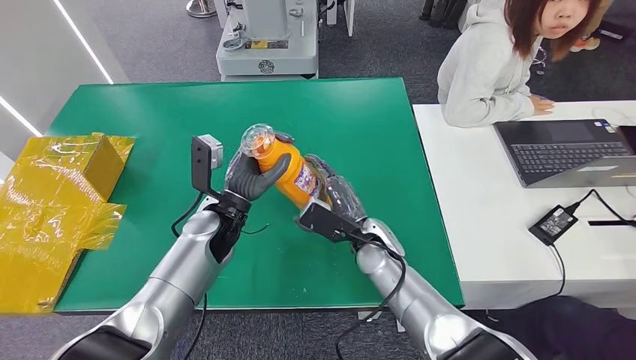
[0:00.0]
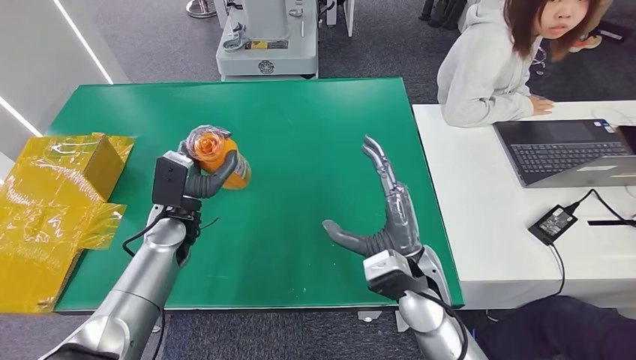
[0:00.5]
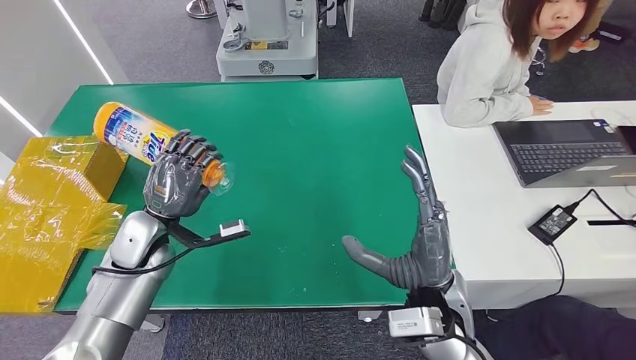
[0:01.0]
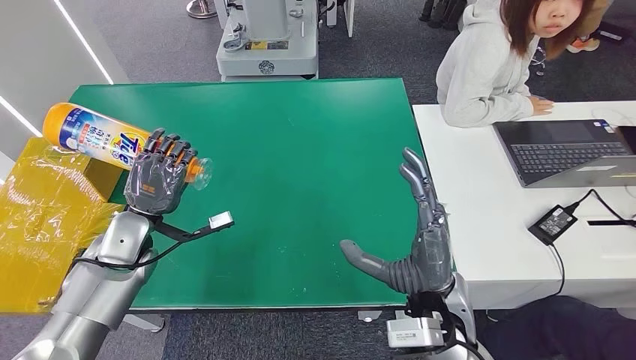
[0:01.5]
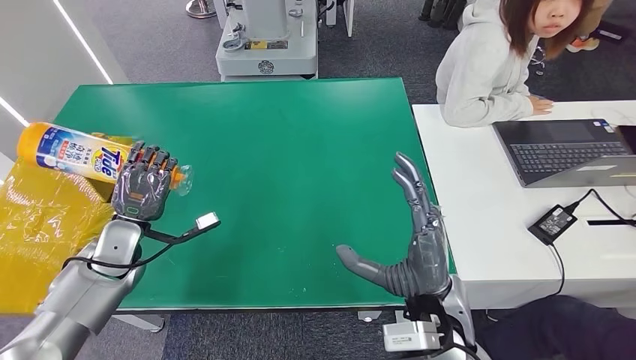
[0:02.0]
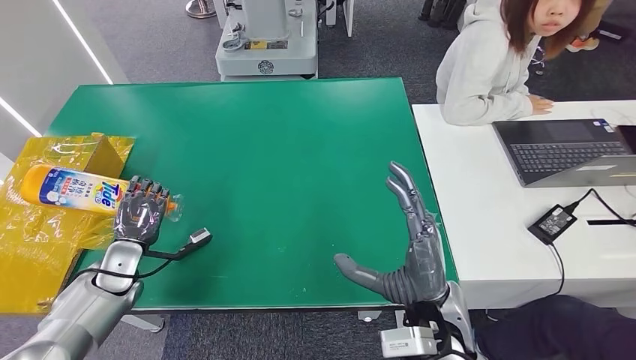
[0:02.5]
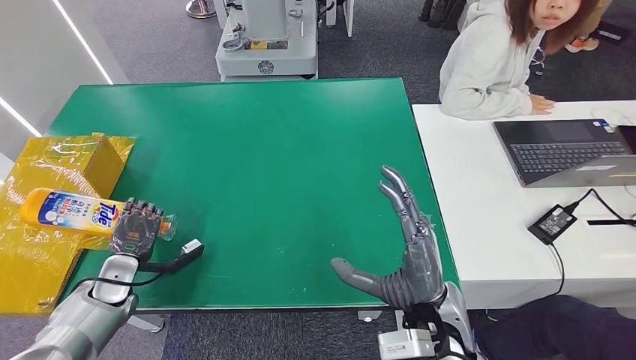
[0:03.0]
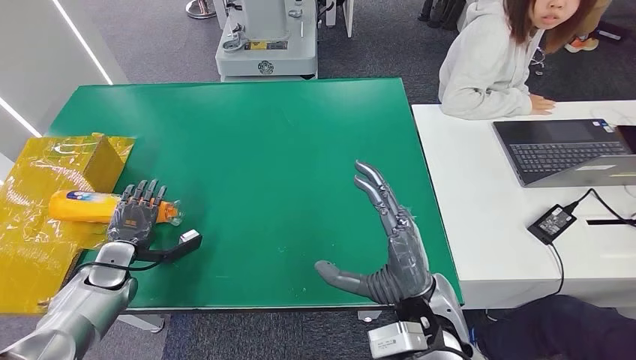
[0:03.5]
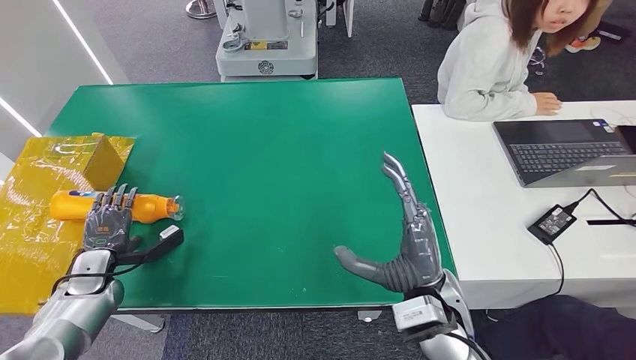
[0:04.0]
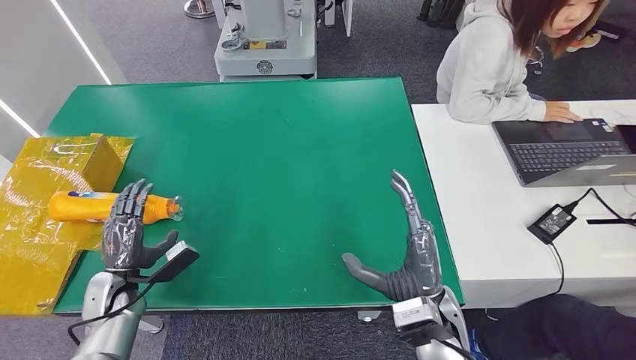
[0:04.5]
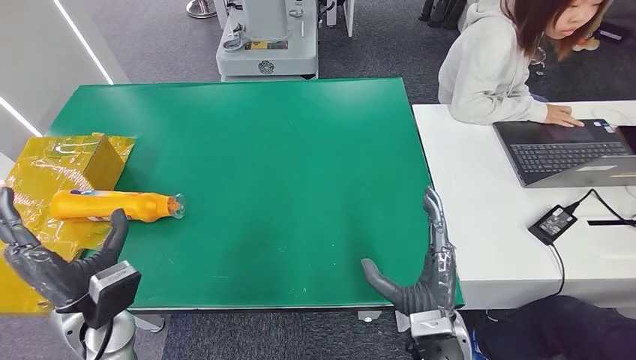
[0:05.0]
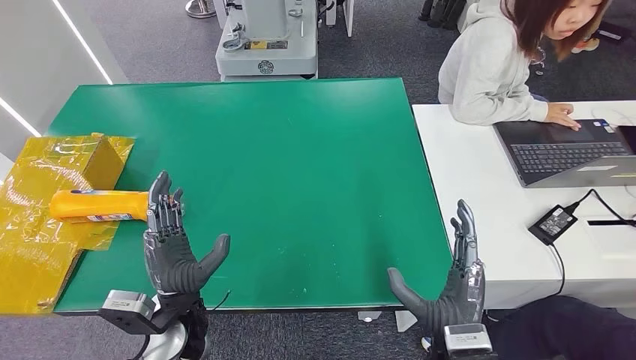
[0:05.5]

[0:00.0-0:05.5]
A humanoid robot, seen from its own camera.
Step, 0:00.0 to 0:05.5: Turn the bottle to the front side.
0:02.0 to 0:03.5: The left hand heads downward and to the left, covering roughly 10 cm.
0:03.5 to 0:05.5: The left hand moves to the right and backward, about 25 cm, while the right hand shifts about 10 cm downward and backward.
